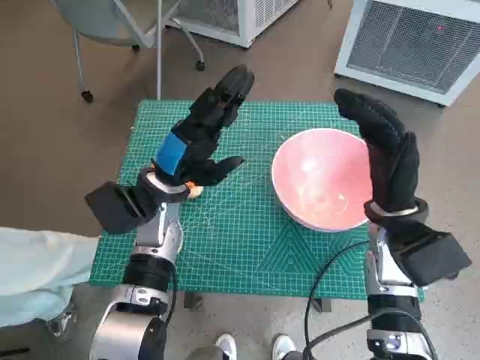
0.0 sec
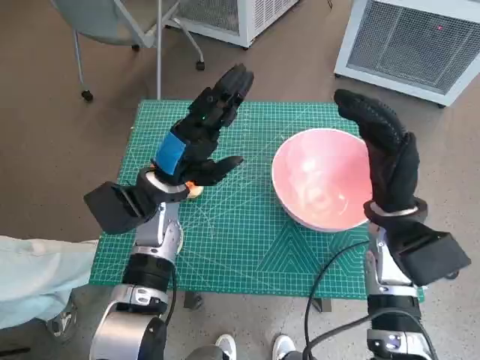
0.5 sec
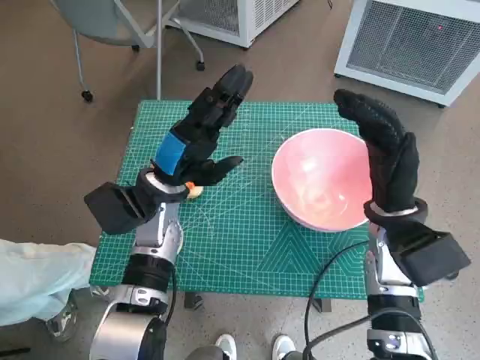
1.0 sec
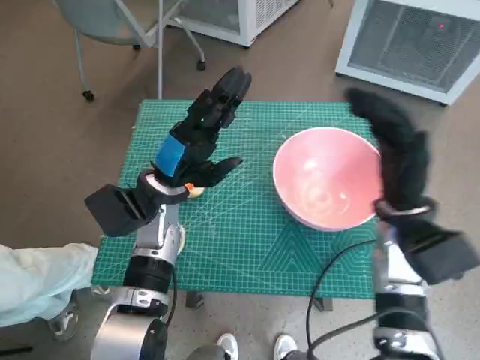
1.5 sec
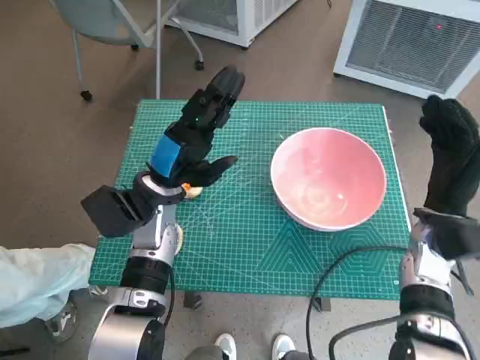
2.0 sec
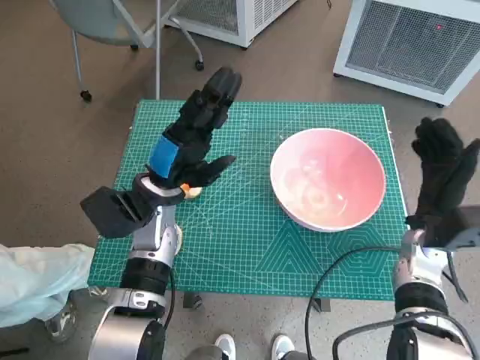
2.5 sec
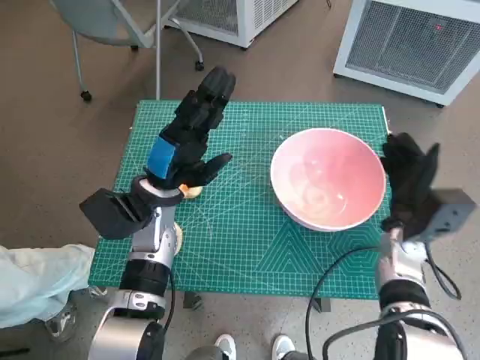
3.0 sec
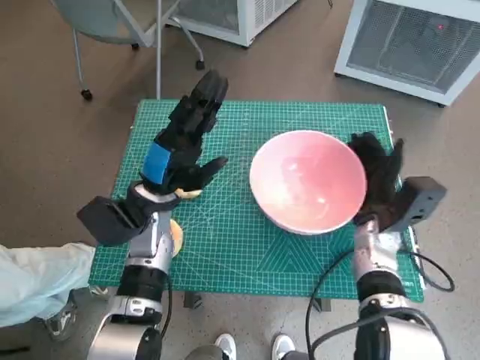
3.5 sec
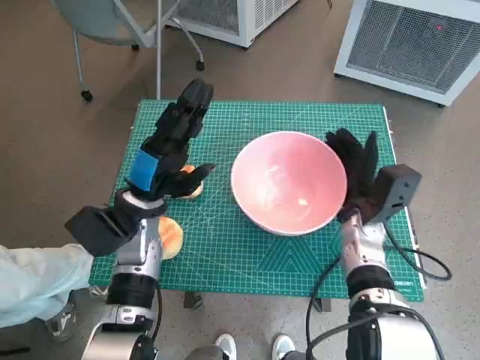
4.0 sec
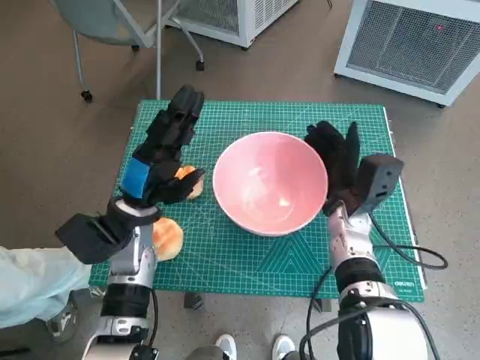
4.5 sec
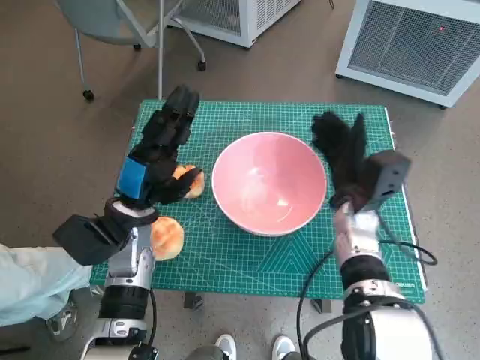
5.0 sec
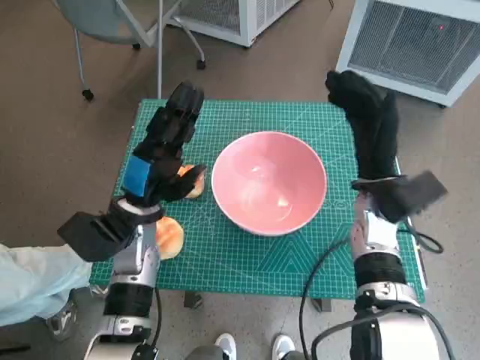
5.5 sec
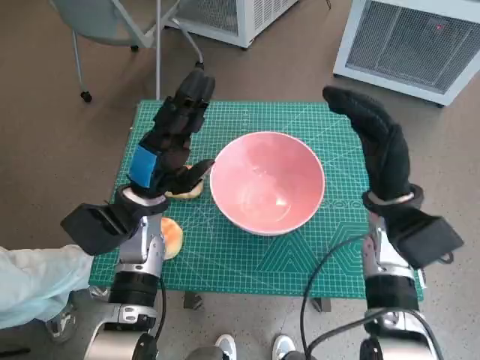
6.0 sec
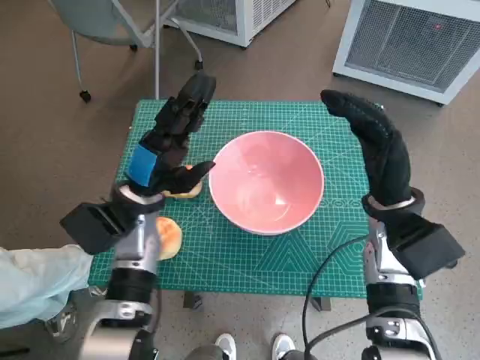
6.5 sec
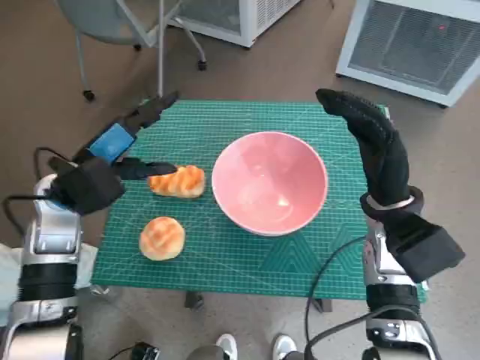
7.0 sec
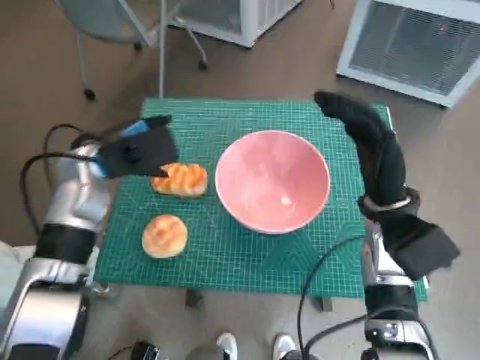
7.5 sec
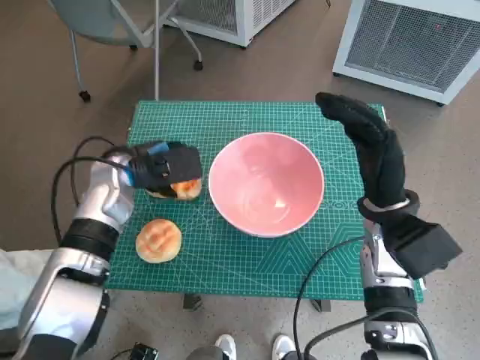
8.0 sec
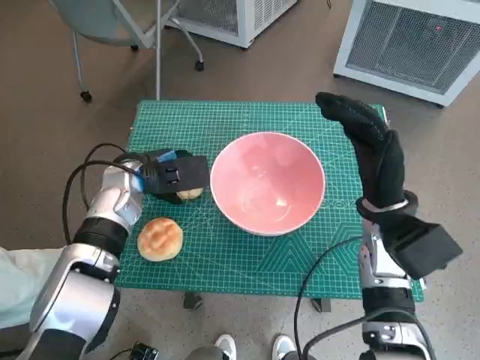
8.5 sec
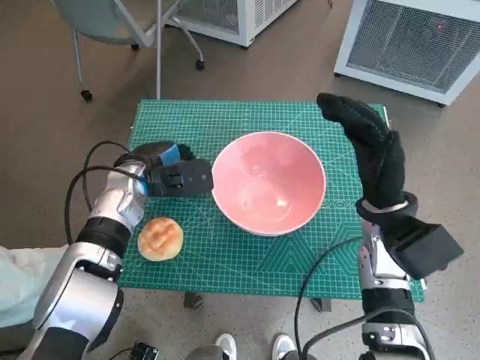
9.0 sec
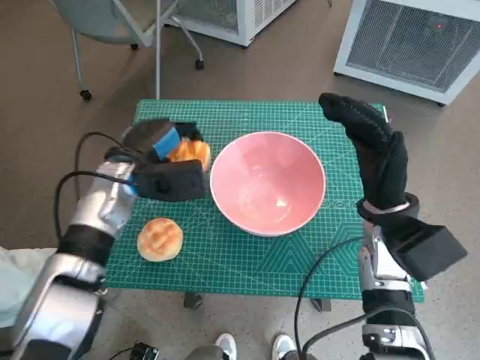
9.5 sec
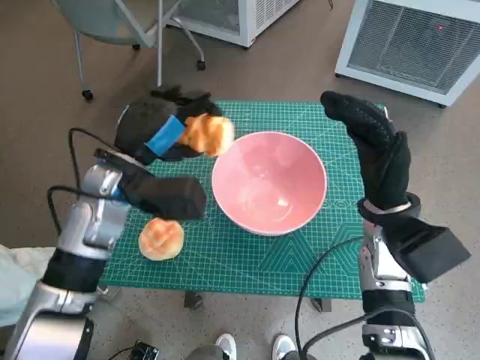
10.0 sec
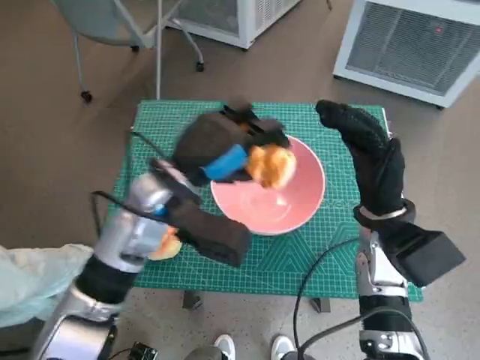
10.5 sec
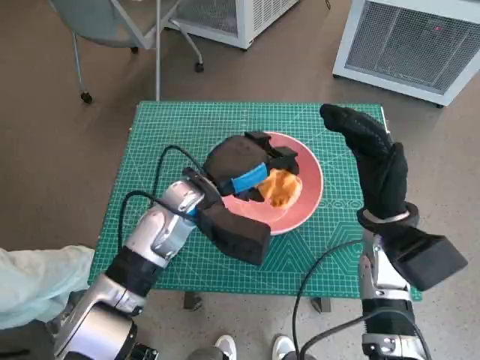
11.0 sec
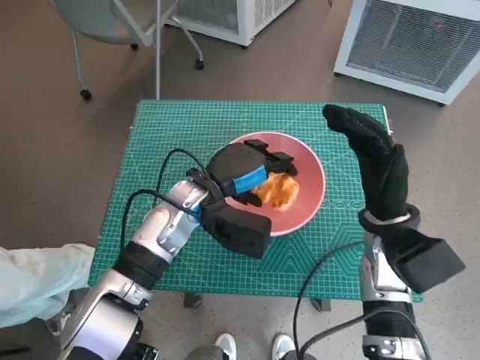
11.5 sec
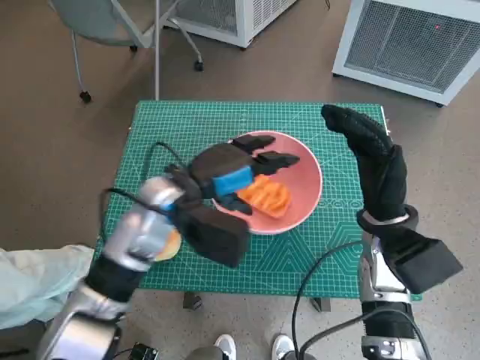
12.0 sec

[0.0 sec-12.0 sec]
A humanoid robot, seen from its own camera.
Task of the whole recording: Push the bowl into the center of the table and put the bread into the bowl.
Step, 0.0 sec to 4.5 sec: Move the pink bowl to the center of table with right hand.
Step, 5.5 sec to 8.5 sec: Grasp the long bread with left hand.
2.0 sec to 4.0 sec: The right hand moves to the left, some 10 cm.
4.0 sec to 6.0 sec: The right hand travels upward by about 10 cm.
6.0 sec to 8.0 sec: The left hand goes about 5 cm forward.
8.0 sec to 10.0 sec: The left hand moves roughly 5 cm.
10.0 sec to 12.0 sec: The left hand travels to the right by approximately 5 cm.

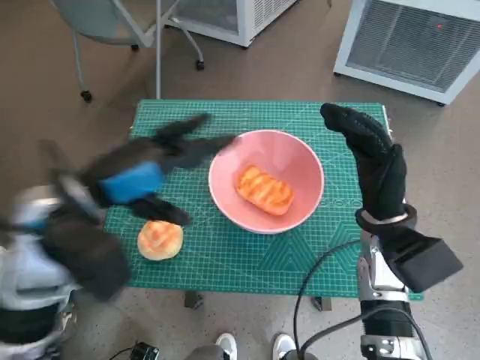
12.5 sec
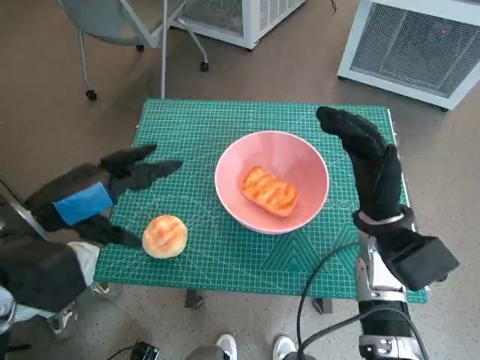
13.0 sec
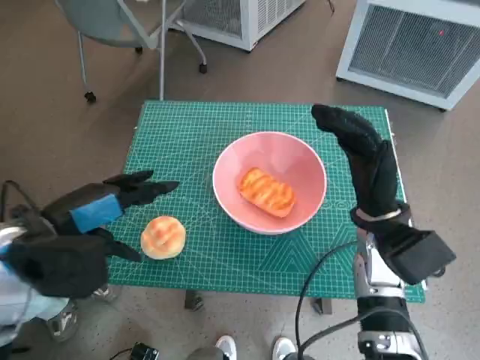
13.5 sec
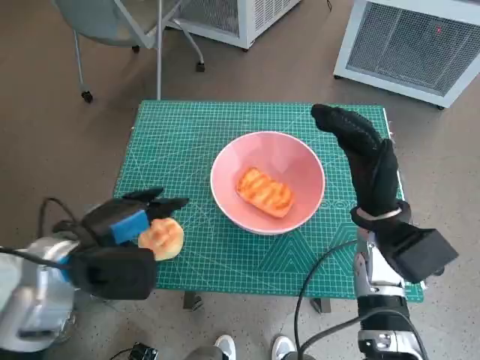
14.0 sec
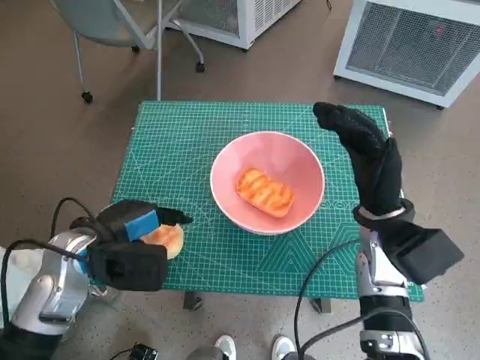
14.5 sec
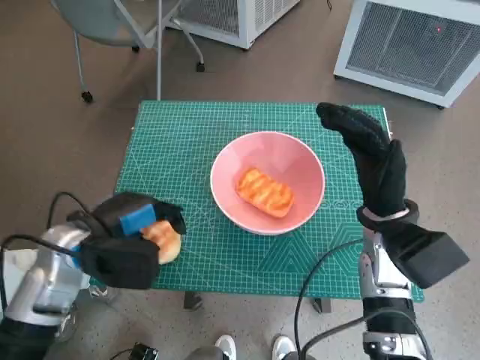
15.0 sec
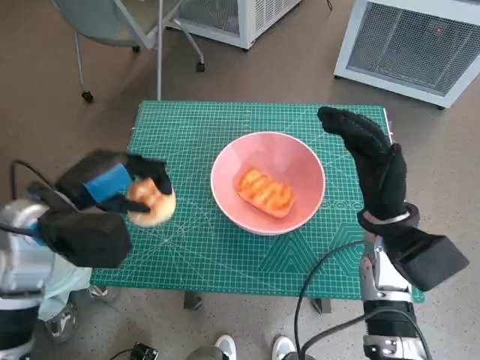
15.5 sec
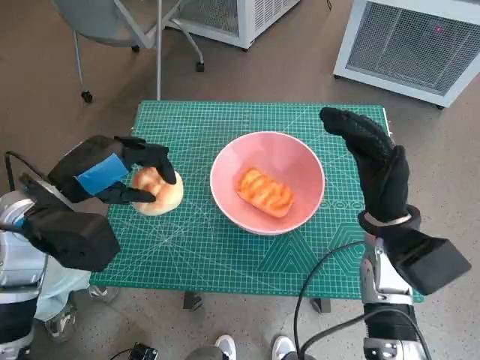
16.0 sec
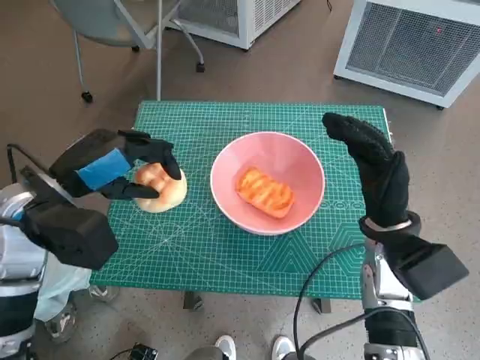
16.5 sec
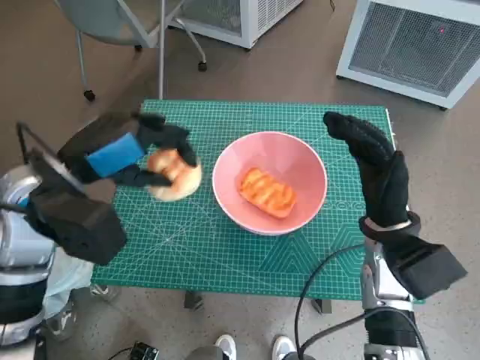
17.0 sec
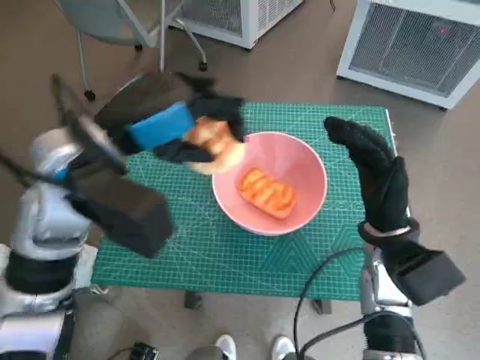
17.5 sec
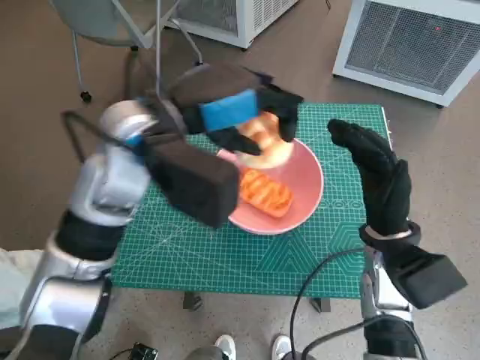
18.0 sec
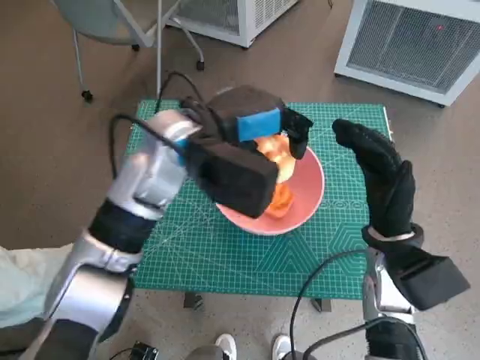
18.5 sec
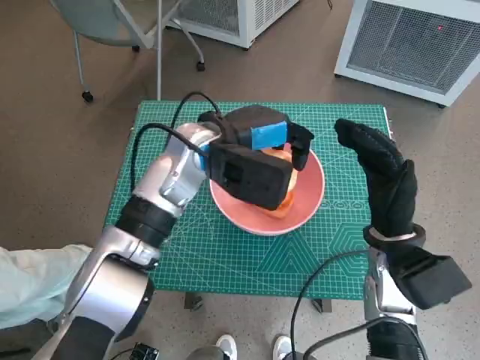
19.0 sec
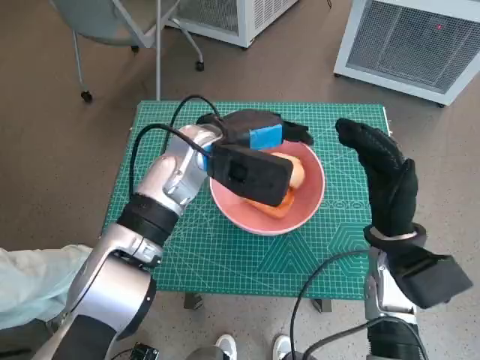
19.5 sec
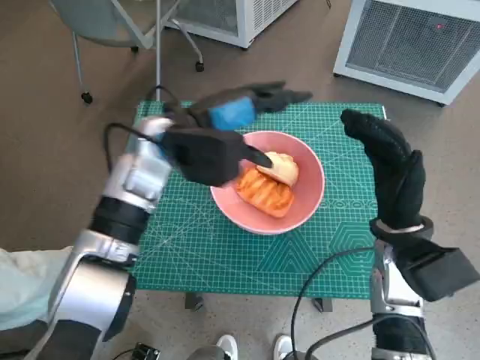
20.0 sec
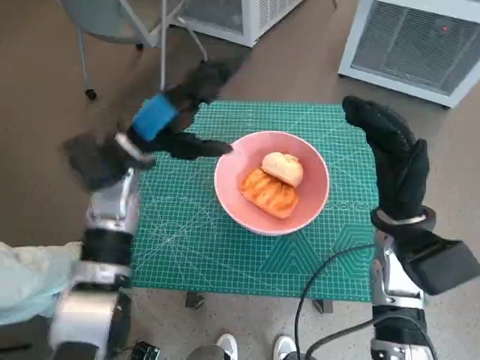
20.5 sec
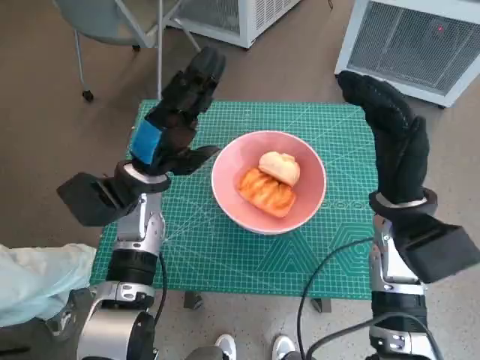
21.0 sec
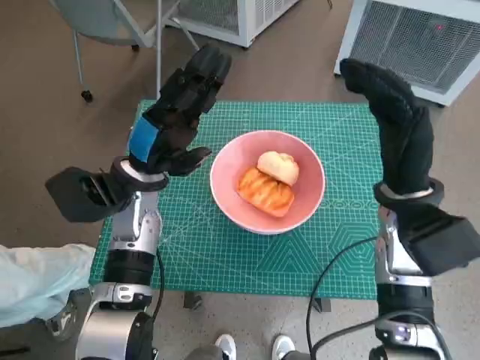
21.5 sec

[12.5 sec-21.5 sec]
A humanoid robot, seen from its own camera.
Task of the whole recording: Push the bowl into the center of the table and put the bread into the bowl.
Step, 12.5 sec to 14.5 sec: Grasp the round bread with left hand.
Step, 15.0 sec to 19.0 sec: Place the round bread in pink bowl with left hand.
12.5 sec to 14.5 sec: The left hand shifts roughly 10 cm downward.
14.5 sec to 17.0 sec: The left hand is displaced upward by about 10 cm.
17.0 sec to 19.5 sec: The left hand is displaced to the right and forward by approximately 20 cm.
19.5 sec to 21.5 sec: The right hand moves upward, roughly 5 cm. The left hand heads to the left, covering approximately 10 cm.

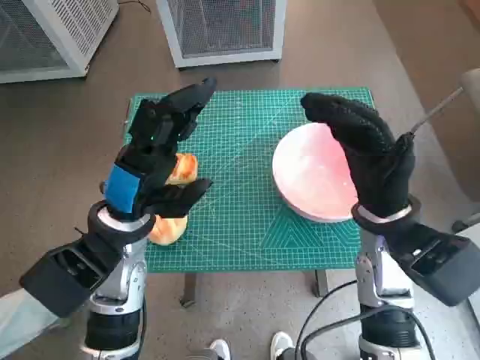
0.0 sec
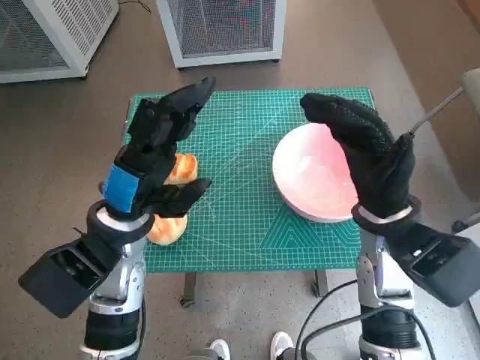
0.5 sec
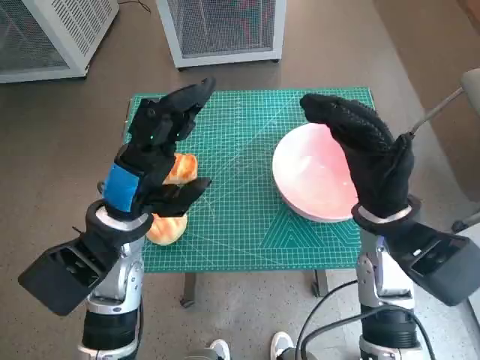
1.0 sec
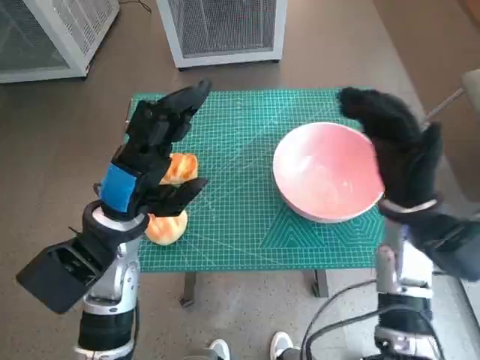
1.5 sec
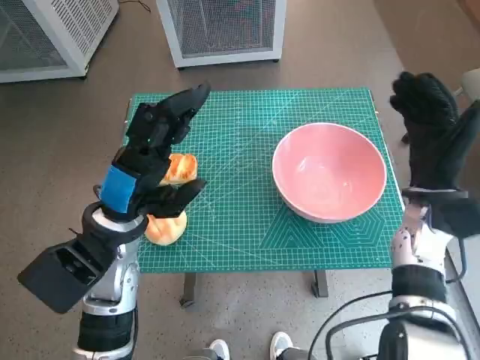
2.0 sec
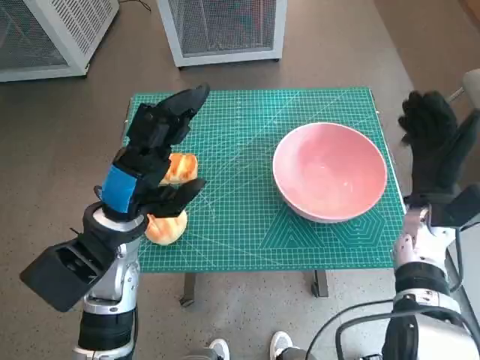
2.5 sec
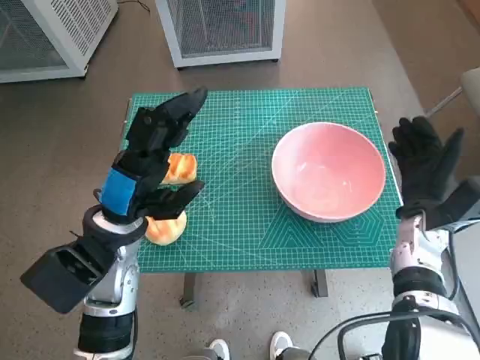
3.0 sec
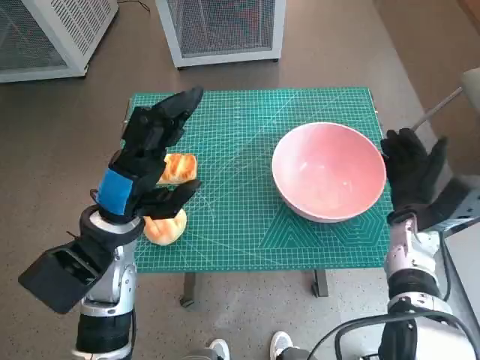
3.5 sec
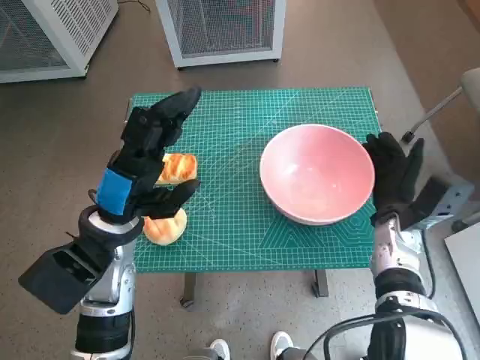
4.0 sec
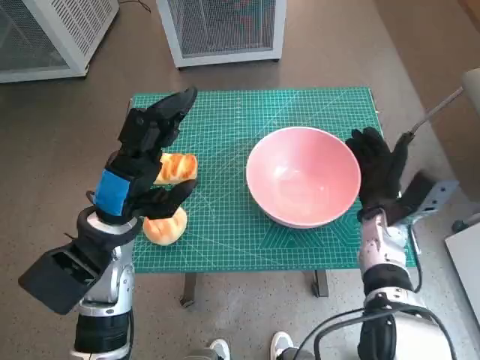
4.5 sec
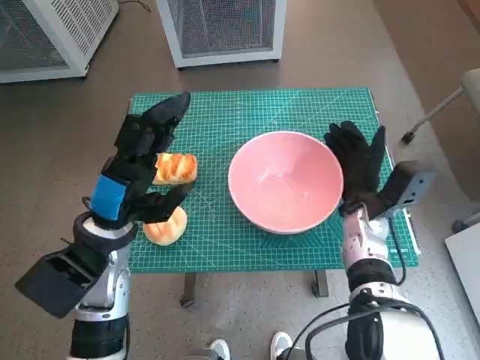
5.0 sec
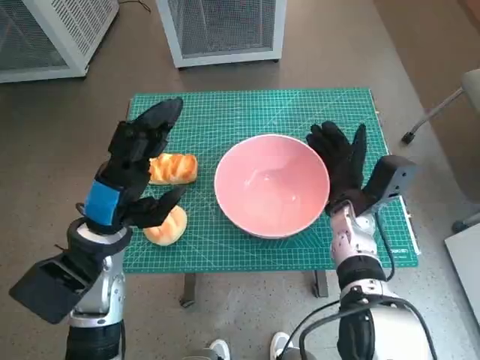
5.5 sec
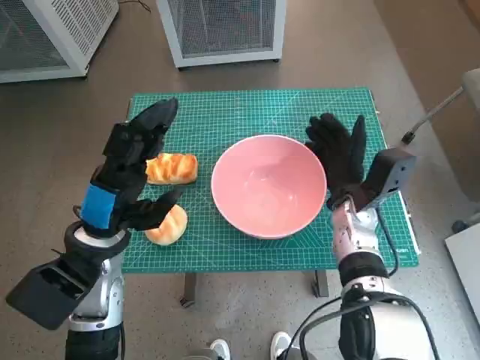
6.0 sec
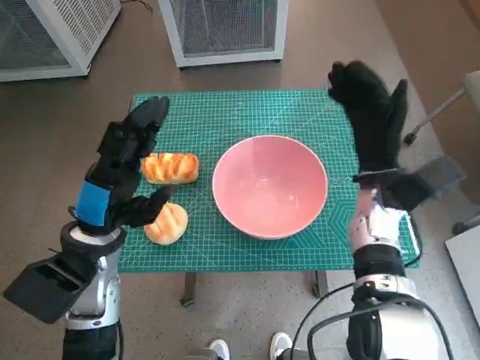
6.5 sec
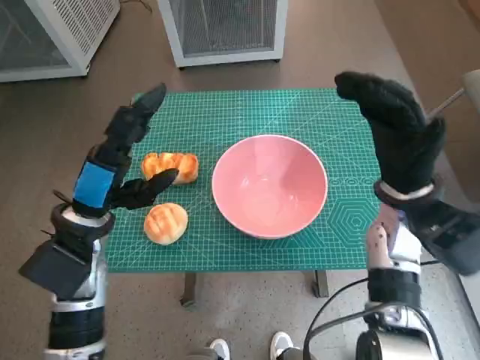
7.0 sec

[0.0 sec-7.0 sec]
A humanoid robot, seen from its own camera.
Task of the whole recording: Push the bowl into the center of the table and put the bread into the bowl.
Step, 0.0 sec to 6.0 sec: Move the pink bowl to the center of table with right hand.
2.0 sec to 3.5 sec: The right hand is displaced downward by about 5 cm.
3.5 sec to 5.0 sec: The right hand shifts some 5 cm to the left.
5.0 sec to 7.0 sec: The right hand moves upward, roughly 10 cm.
